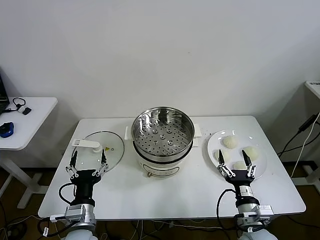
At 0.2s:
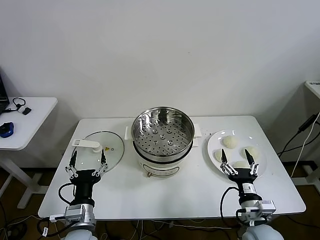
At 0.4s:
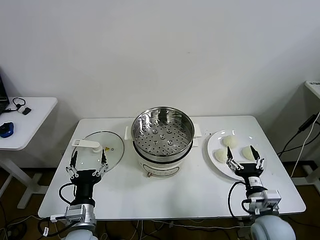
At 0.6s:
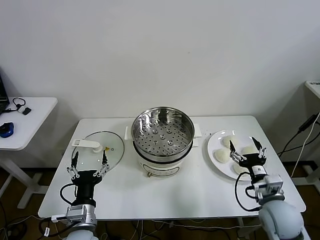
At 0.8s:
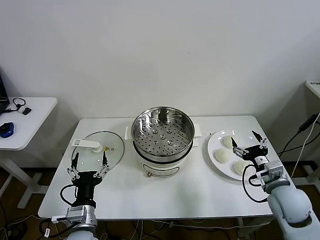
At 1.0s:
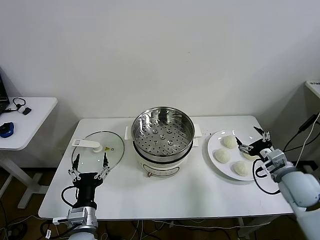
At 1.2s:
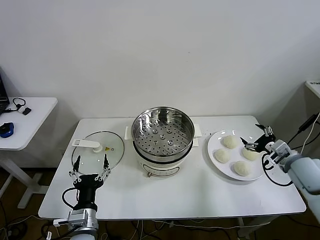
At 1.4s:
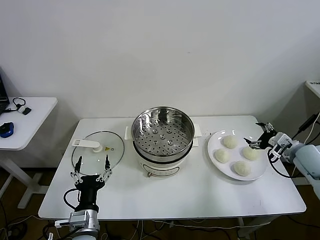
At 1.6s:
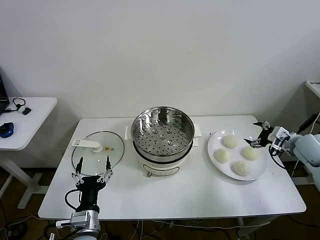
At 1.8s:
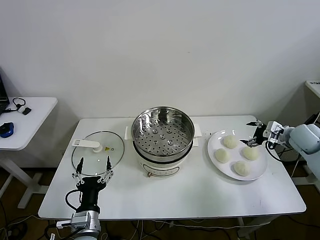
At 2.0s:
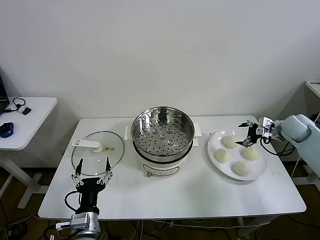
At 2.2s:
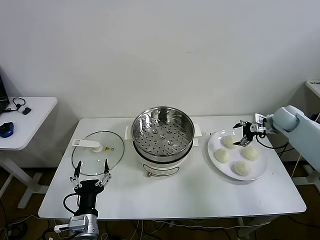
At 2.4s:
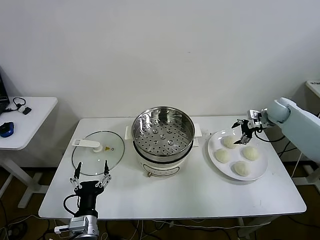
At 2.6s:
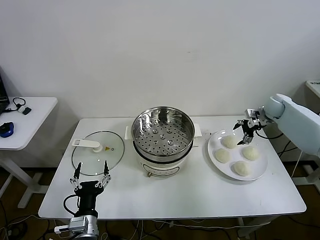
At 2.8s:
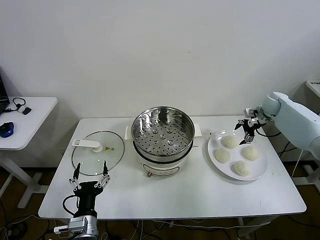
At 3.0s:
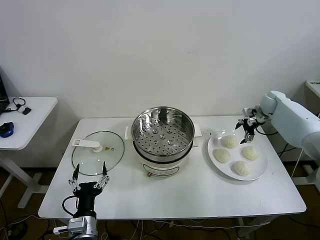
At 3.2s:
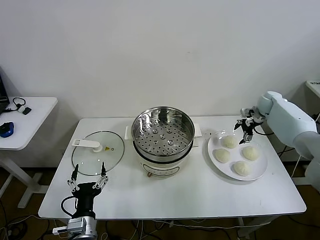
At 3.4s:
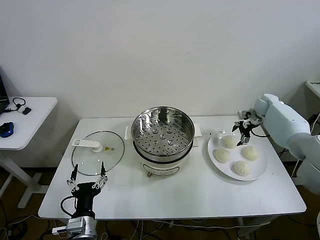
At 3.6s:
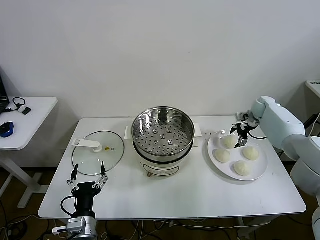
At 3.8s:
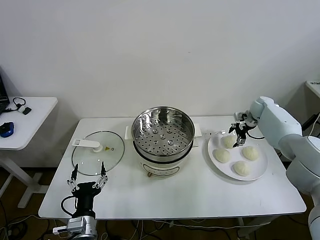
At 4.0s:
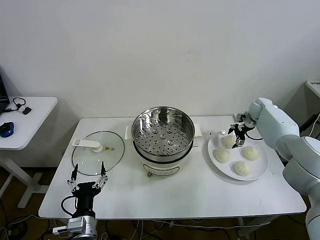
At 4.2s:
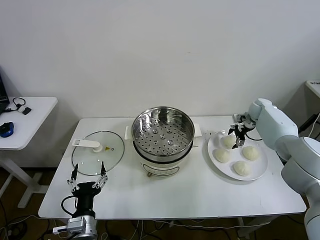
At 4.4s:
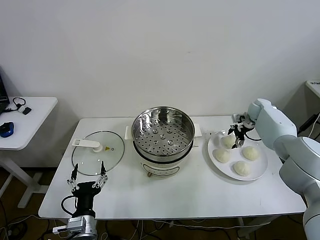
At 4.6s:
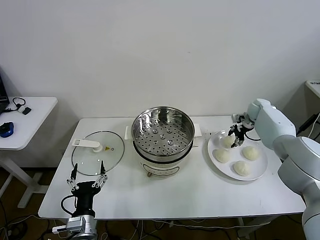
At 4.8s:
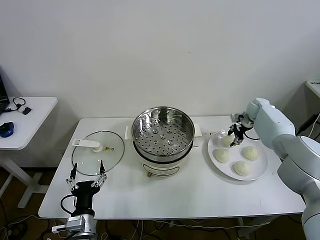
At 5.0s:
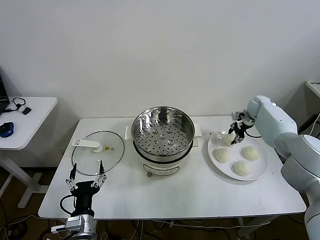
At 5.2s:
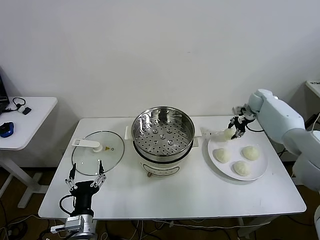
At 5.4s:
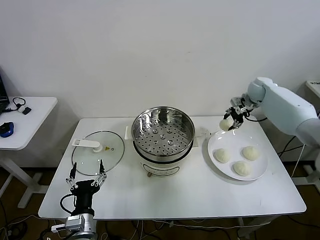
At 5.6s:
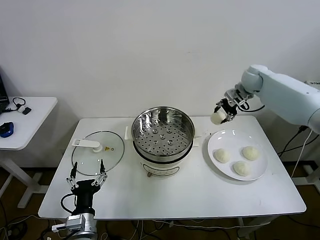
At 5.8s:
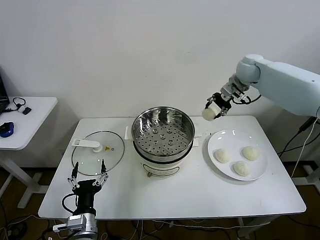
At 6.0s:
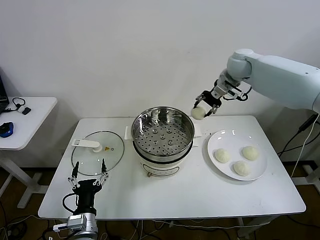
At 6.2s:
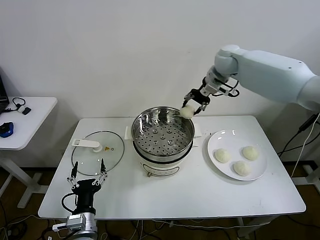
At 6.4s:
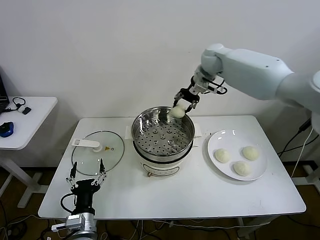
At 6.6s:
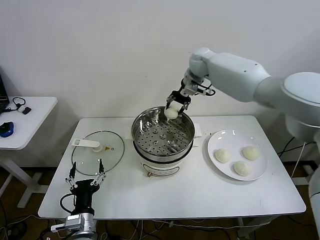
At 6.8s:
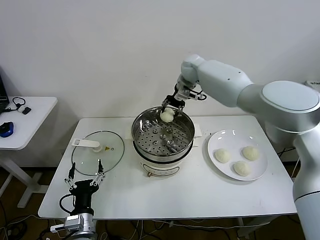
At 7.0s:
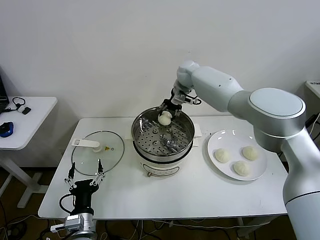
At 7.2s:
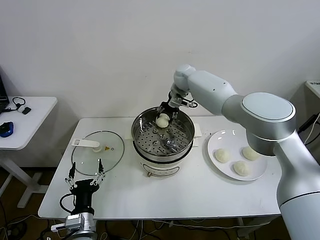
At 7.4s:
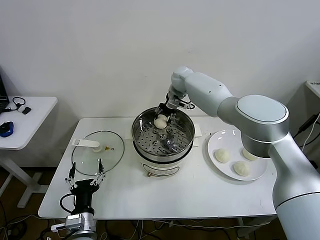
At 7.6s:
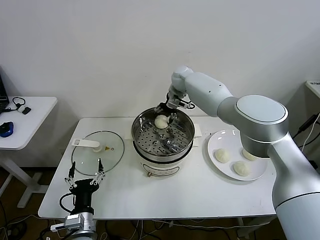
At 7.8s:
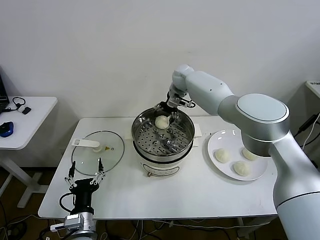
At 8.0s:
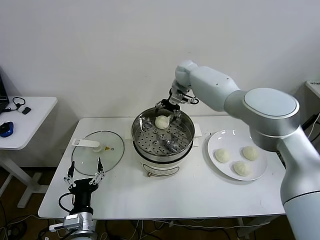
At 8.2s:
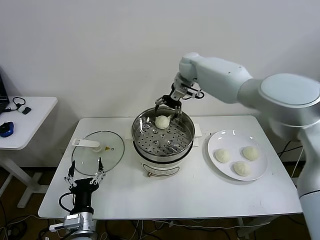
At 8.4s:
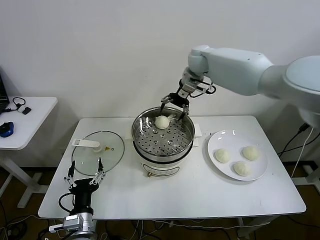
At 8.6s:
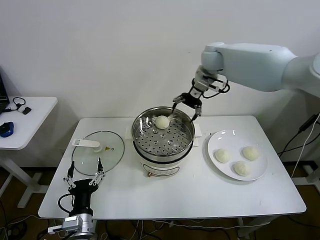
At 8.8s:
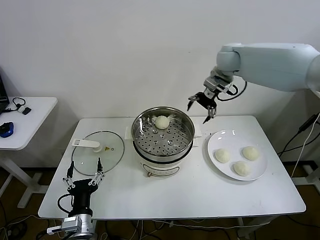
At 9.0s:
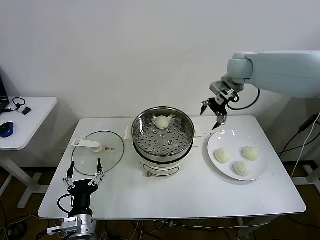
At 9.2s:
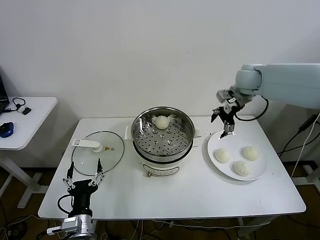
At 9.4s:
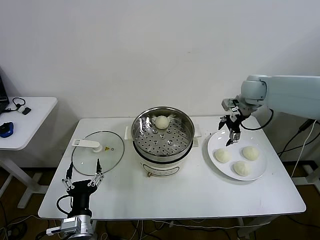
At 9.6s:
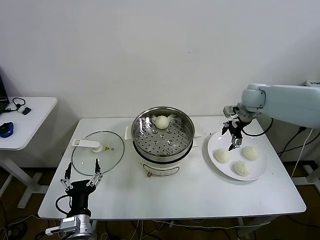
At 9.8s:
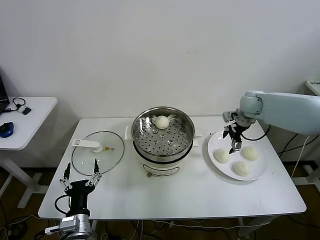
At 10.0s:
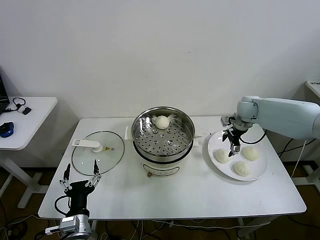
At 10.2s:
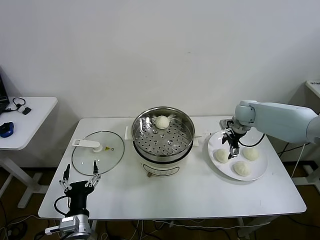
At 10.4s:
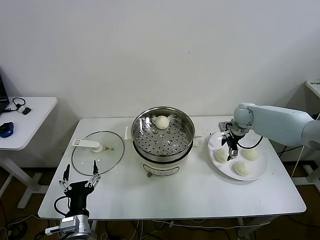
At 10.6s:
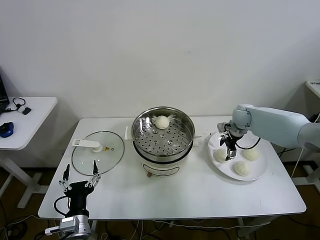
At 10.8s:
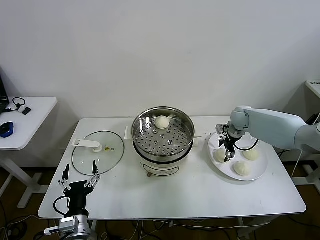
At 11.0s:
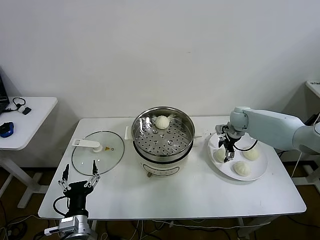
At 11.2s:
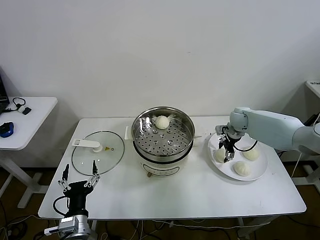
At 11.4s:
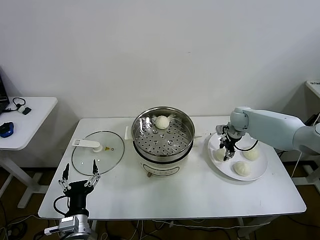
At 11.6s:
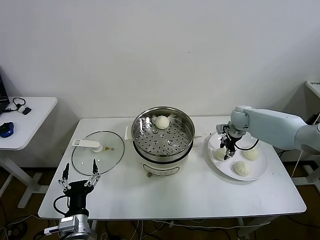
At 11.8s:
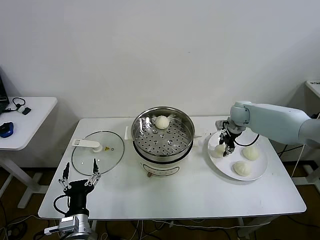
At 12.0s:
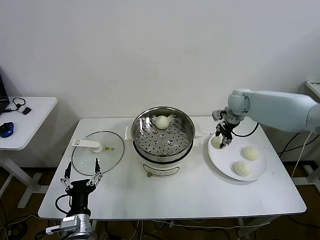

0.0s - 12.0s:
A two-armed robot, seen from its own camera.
Step, 0.0s - 4.6s: Grasp the baozi in the plate with right gripper.
Step, 4.8s - 8.0s: Place the baozi on the steamer with right gripper.
Step, 8.2s - 11.4s: Grasp the baozi in the plate with right gripper.
1.6s - 3.0s: The right gripper travels forward by about 20 cm.
3.0s - 4.4s: The right gripper changes place by some 5 cm, and closes up.
4.4s - 6.0s: The right gripper shifts roughly 30 cm upward and to the left, and closes up.
6.0s - 7.6s: The right gripper goes about 20 cm to the left and downward, and opens.
7.6s - 9.0s: The right gripper is displaced to the right, backward and upward by about 20 cm.
9.0s - 10.4s: The right gripper moves downward, roughly 20 cm.
10.4s - 12.0s: The right gripper heads upward, covering some 10 cm, and closes.

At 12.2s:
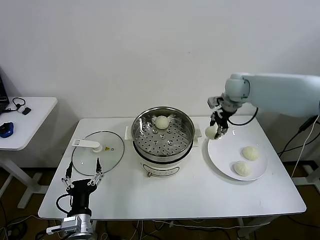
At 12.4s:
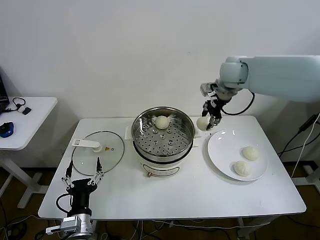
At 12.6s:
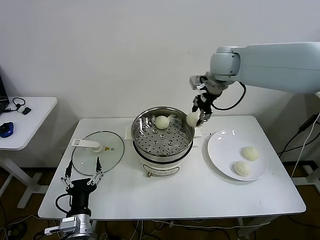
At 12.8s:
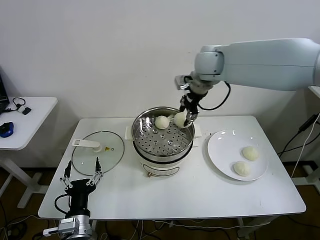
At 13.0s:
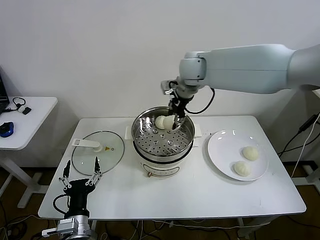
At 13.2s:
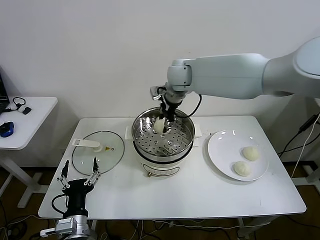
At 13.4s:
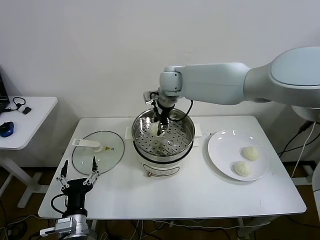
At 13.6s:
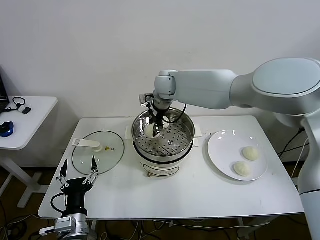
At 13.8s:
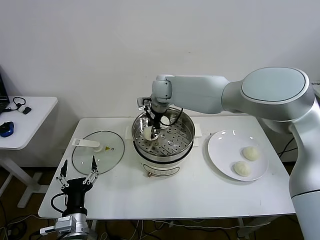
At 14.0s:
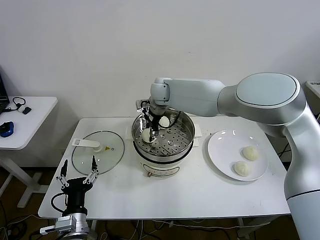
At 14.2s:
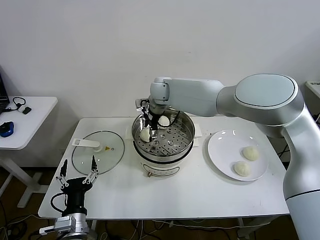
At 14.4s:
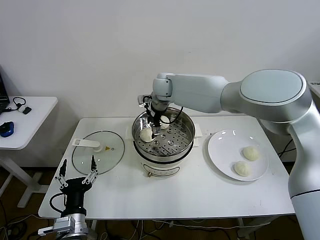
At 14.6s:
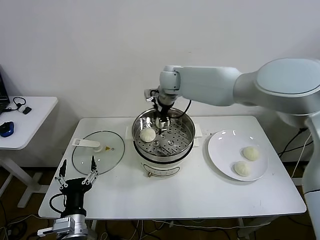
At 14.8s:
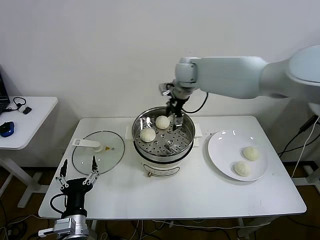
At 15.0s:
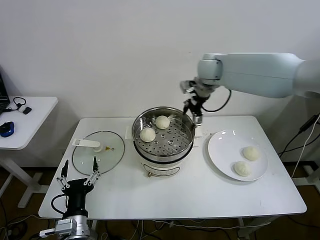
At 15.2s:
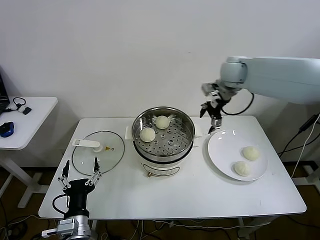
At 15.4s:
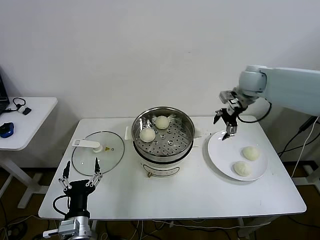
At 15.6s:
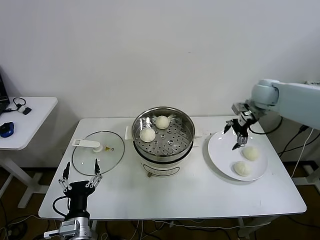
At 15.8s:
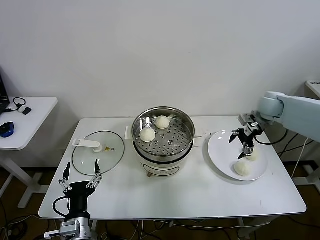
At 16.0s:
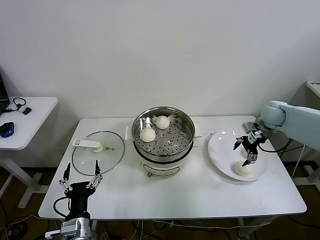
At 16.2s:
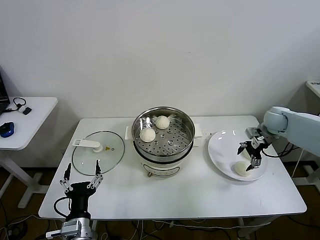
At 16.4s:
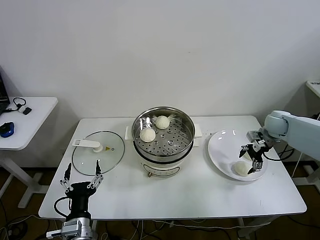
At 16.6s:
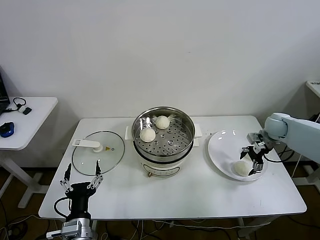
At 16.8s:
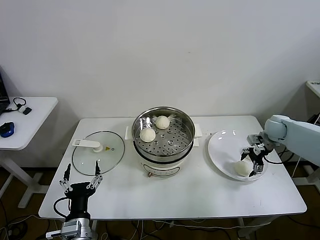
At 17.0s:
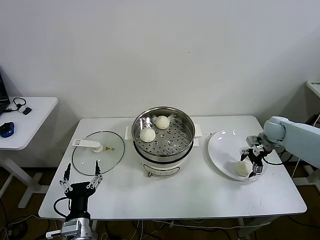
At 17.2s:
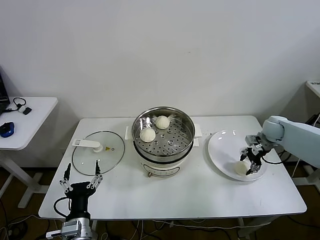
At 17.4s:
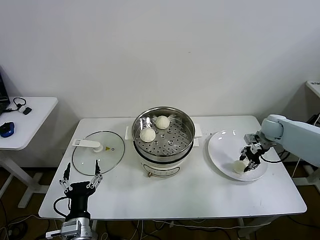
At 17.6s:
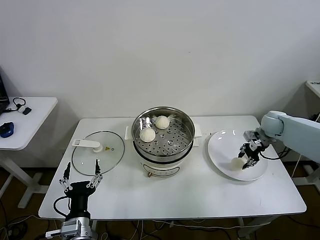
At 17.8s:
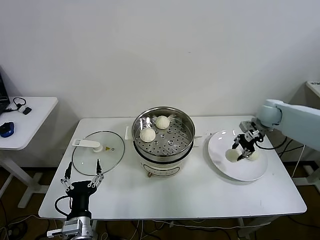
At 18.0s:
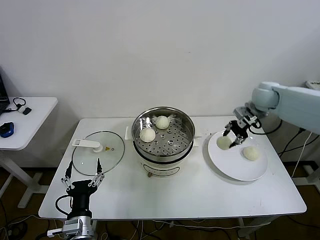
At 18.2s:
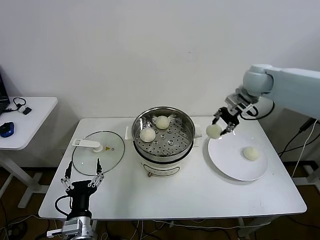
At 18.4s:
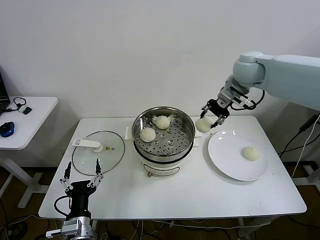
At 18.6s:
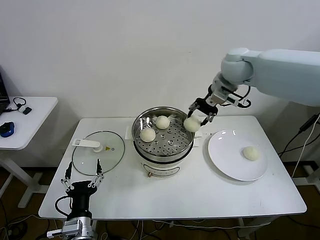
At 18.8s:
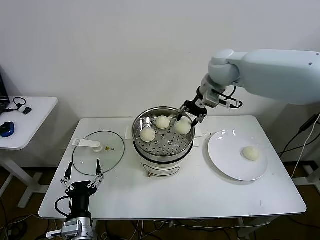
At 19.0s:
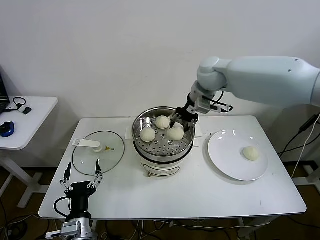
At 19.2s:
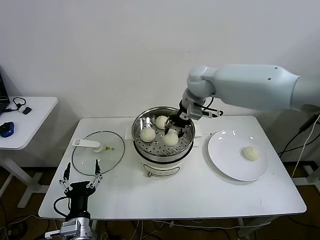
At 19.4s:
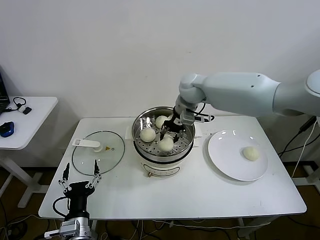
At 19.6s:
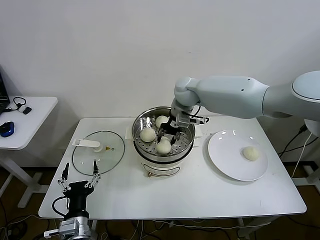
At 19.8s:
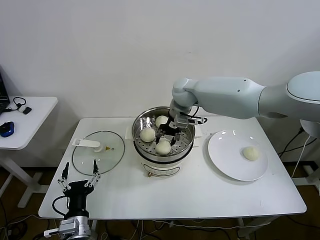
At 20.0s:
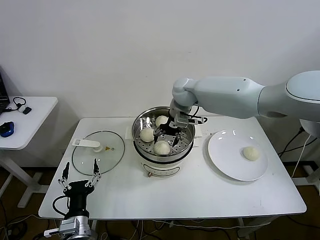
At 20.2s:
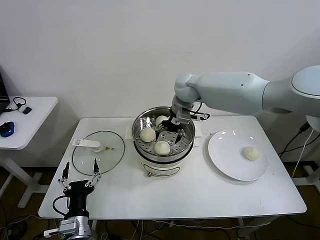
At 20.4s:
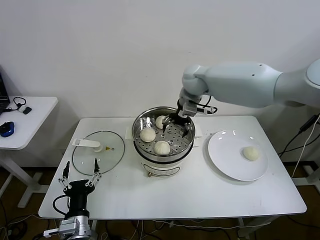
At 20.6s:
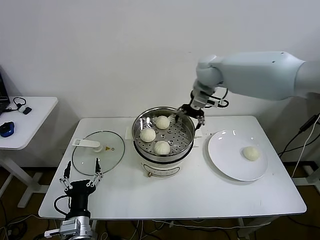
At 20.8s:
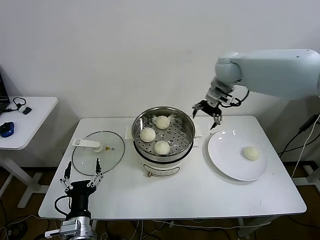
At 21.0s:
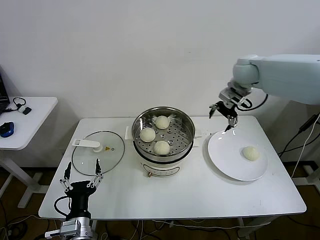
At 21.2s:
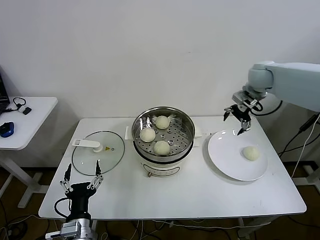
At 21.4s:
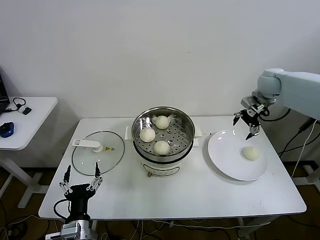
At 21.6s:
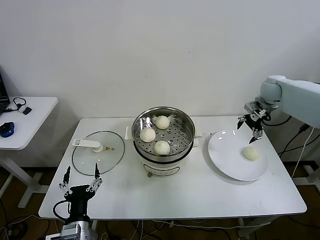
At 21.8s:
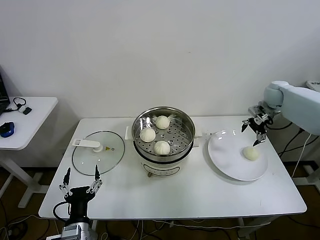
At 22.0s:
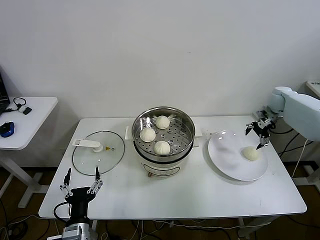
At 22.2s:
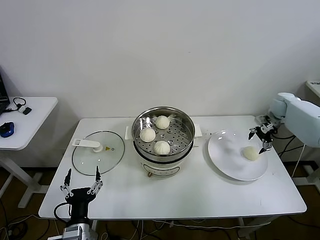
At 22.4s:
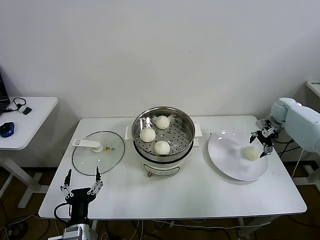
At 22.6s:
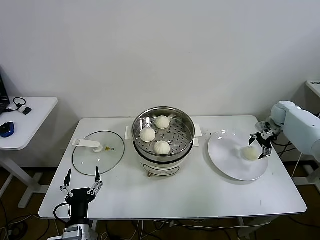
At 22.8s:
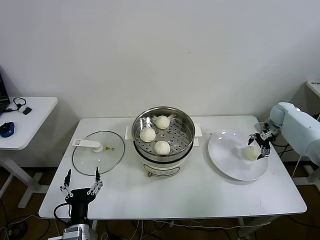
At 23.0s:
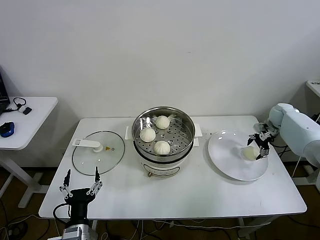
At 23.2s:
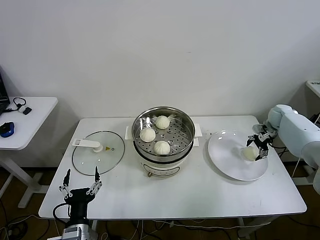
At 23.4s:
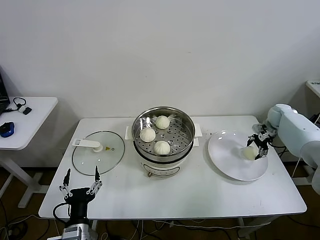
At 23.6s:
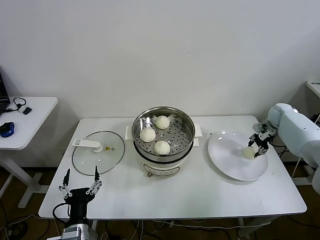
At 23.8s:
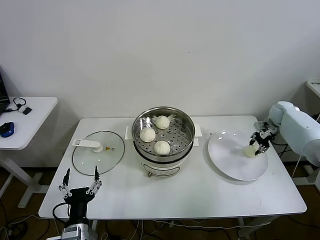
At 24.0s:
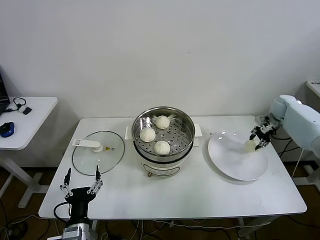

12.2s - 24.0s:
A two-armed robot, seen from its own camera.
Step, 12.2s - 14.4s: Place the baozi on the steamer with right gripper.
Step, 14.6s - 17.2s: Grasp the baozi in the plate with right gripper.
Step, 17.6s - 20.2s: Place the baozi on the steamer with right gripper.
Step, 20.4s - 23.6s: Grasp the baozi in the plate with right gripper.
12.2s - 13.6s: The right gripper is displaced to the left by about 25 cm.
13.6s - 15.2s: The right gripper heads to the right, covering roughly 25 cm, and opens its fingers.
15.2s - 16.6s: The right gripper heads downward and to the right, covering roughly 30 cm.
16.6s - 18.2s: The right gripper is displaced upward and to the left by about 25 cm, and closes up.
18.2s - 19.6s: The right gripper shifts about 20 cm to the left.
19.6s - 21.0s: The right gripper moves to the right, roughly 20 cm, and opens its fingers.
21.0s - 22.6s: The right gripper shifts some 30 cm to the right and downward.
22.6s - 24.0s: The right gripper closes up.
